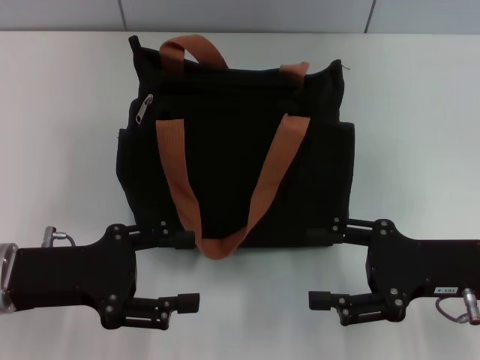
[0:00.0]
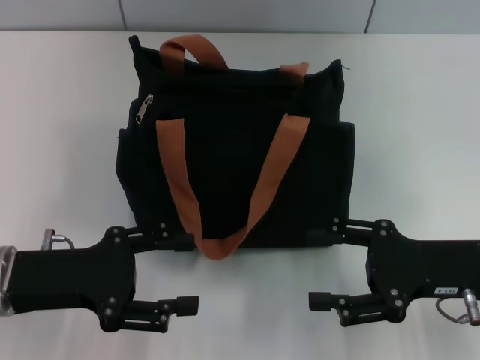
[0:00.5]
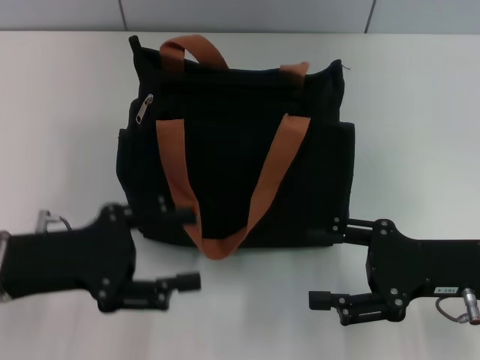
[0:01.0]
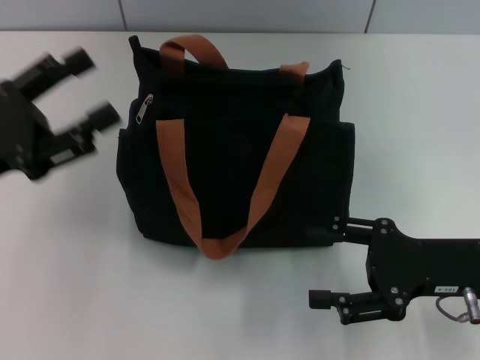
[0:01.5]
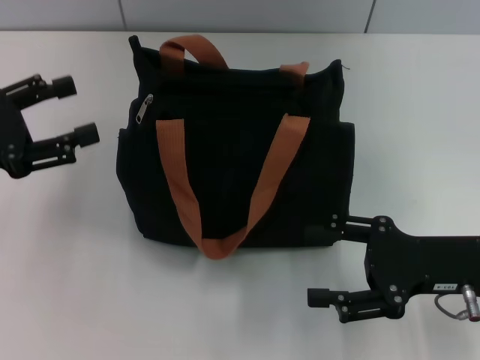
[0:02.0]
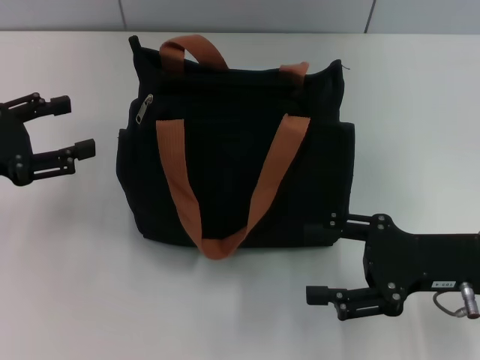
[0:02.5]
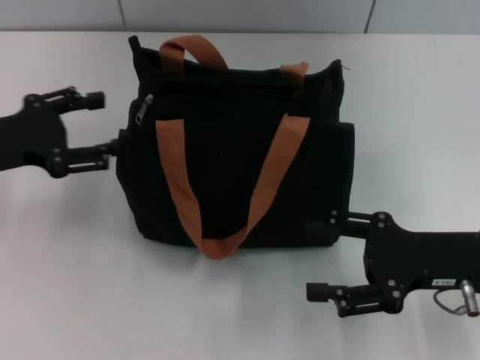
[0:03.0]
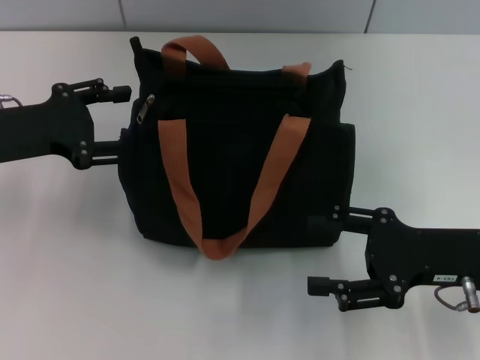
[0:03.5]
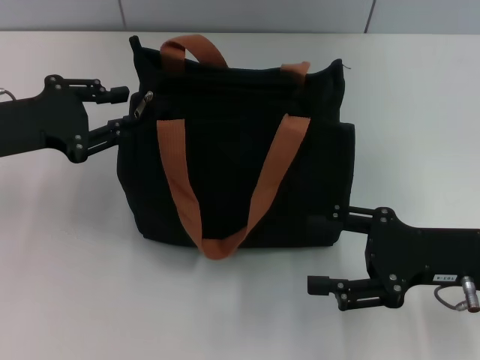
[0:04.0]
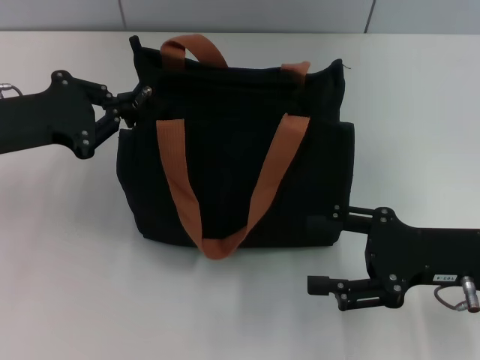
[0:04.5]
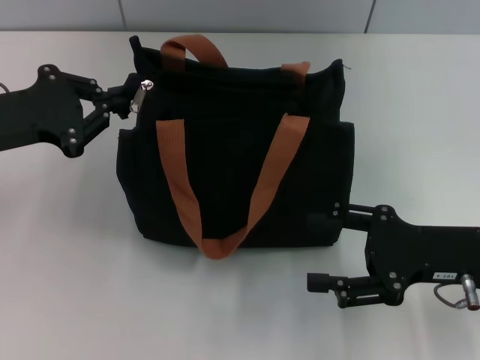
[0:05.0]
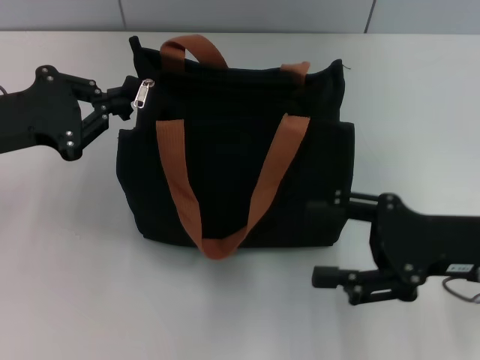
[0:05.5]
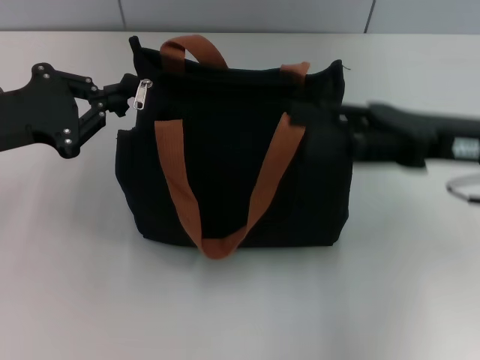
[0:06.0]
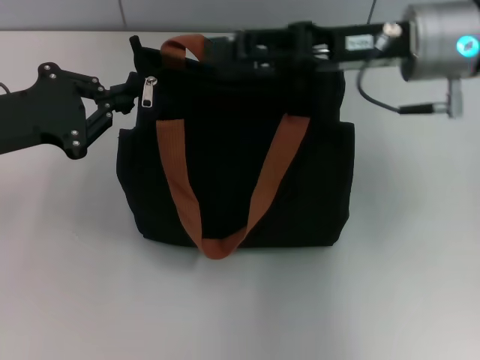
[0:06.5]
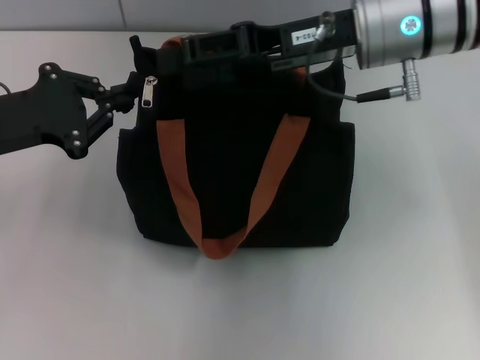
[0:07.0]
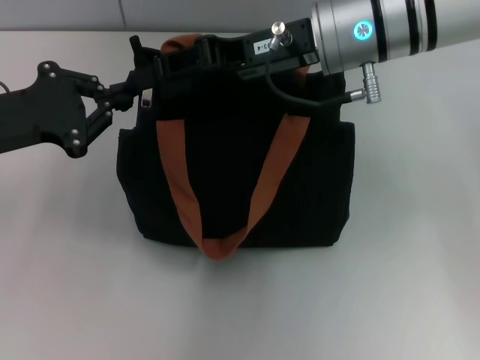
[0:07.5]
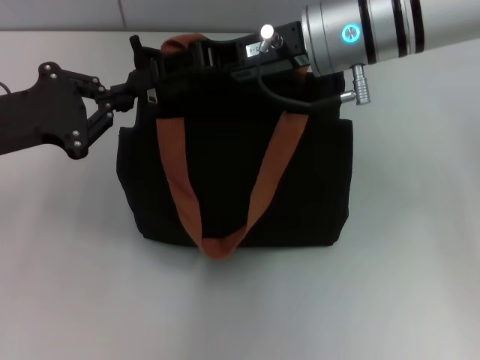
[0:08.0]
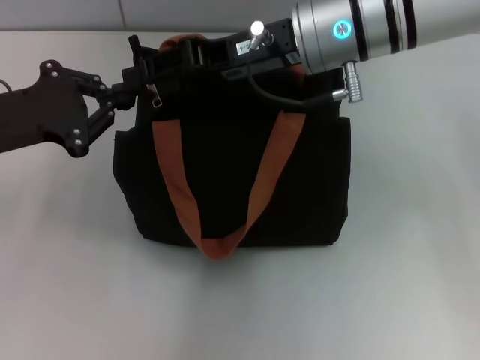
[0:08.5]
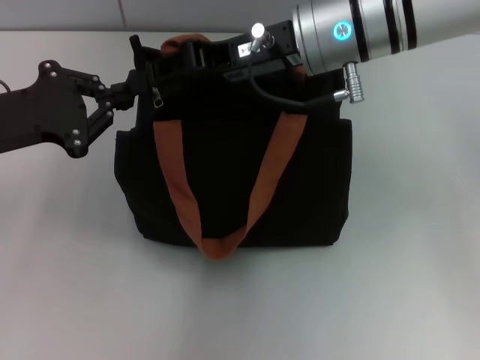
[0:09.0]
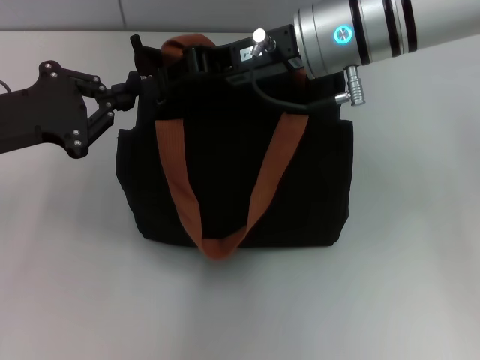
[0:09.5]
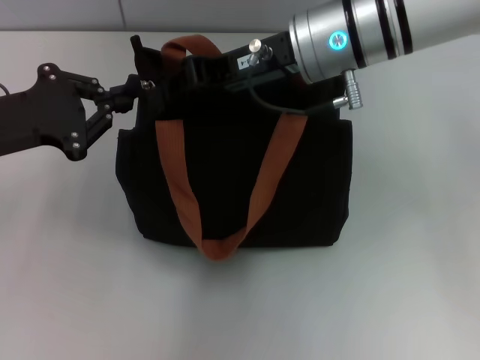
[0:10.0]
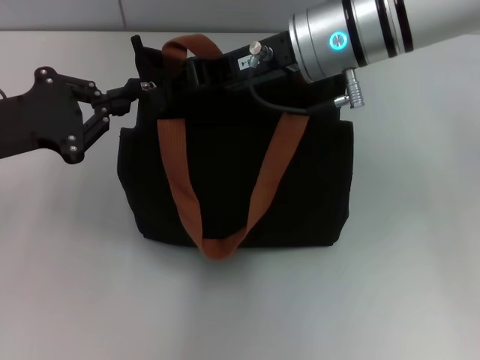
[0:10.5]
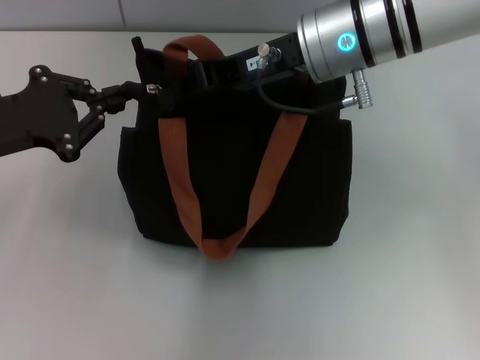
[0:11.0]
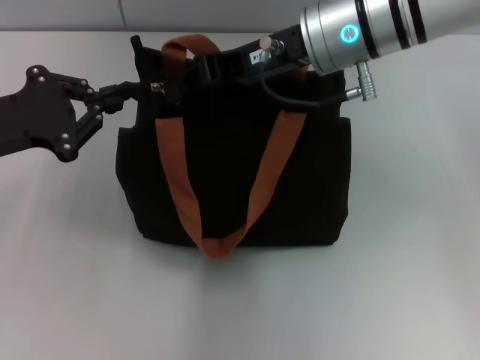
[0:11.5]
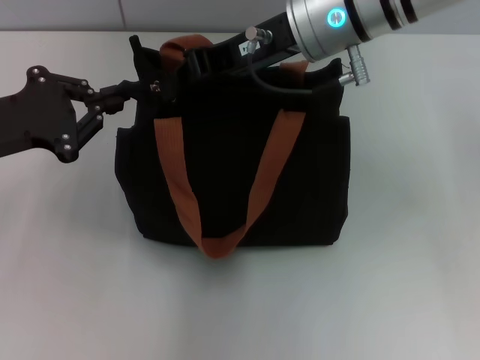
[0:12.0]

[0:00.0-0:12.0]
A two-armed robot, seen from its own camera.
0.0 to 2.0 s: The left gripper travels to the left and upward by approximately 10 cm.
2.0 to 4.0 s: The left gripper moves some 5 cm, and closes its fingers.
4.0 to 6.0 s: The left gripper closes. The right gripper heads upward and forward, covering about 10 cm.
6.0 to 8.0 s: The right gripper moves to the left and forward, roughly 15 cm.
8.0 to 10.0 s: The right gripper closes.
10.0 to 12.0 s: The grippers stay close to where they were, moving slightly.

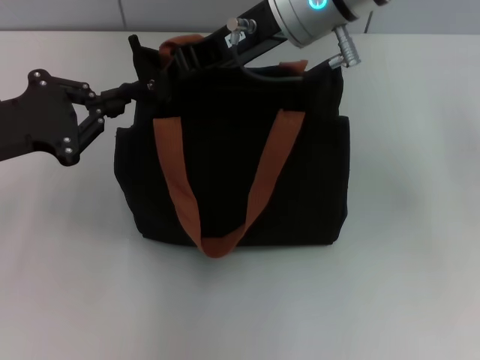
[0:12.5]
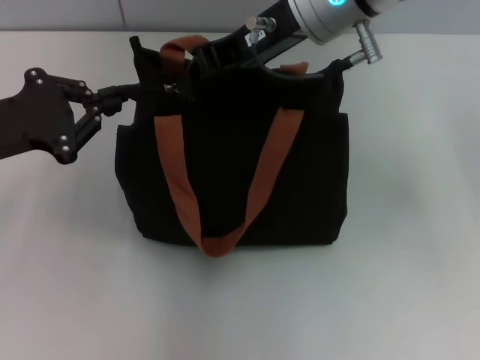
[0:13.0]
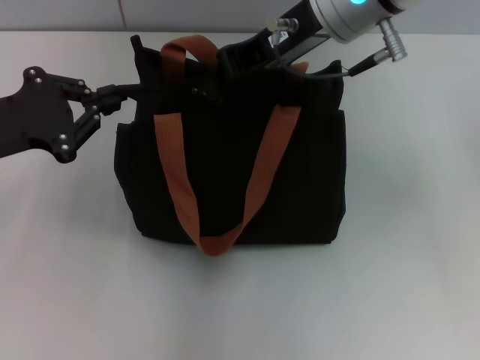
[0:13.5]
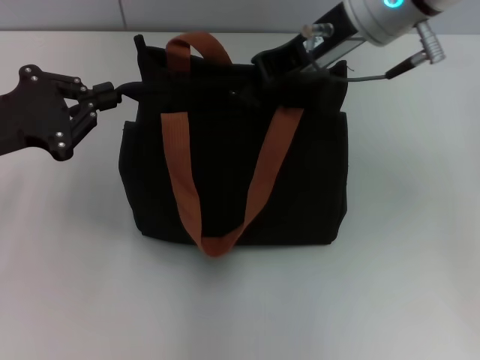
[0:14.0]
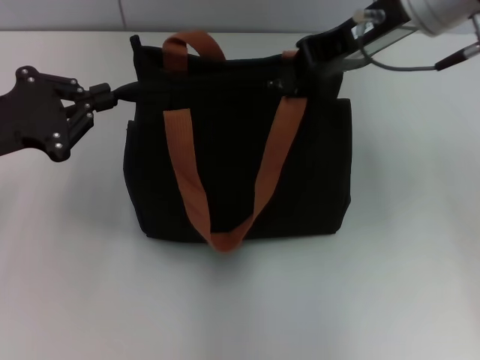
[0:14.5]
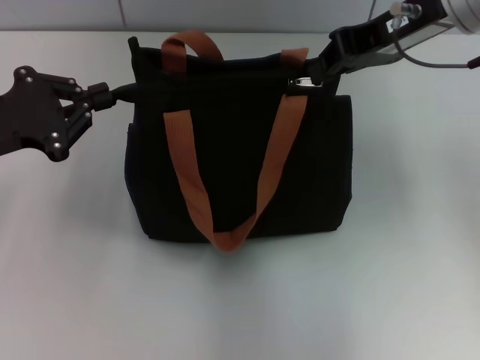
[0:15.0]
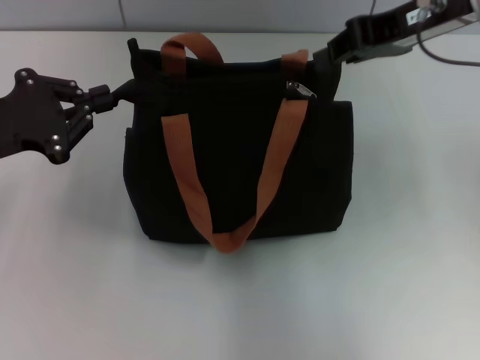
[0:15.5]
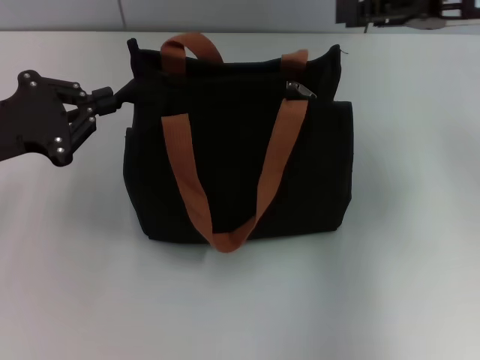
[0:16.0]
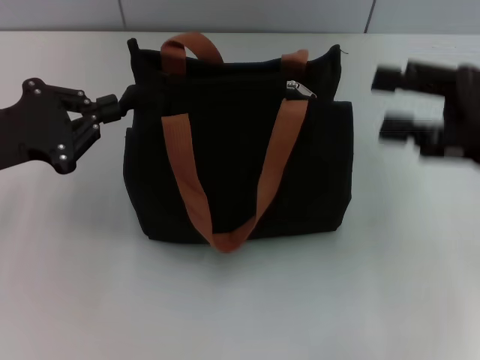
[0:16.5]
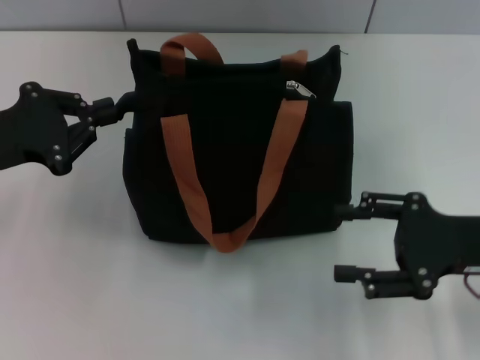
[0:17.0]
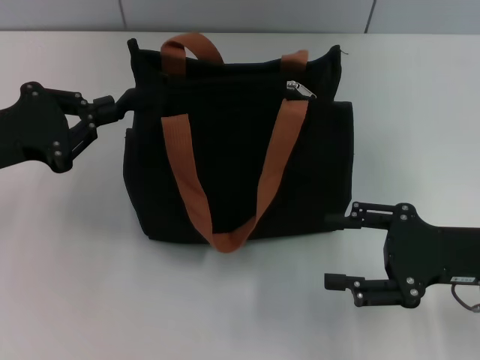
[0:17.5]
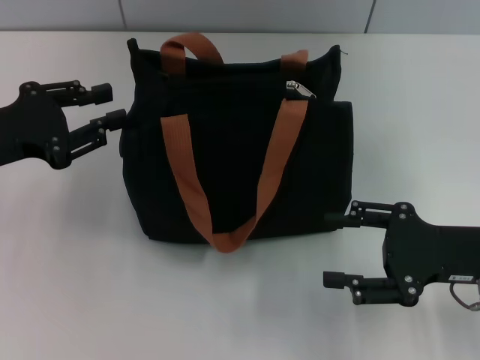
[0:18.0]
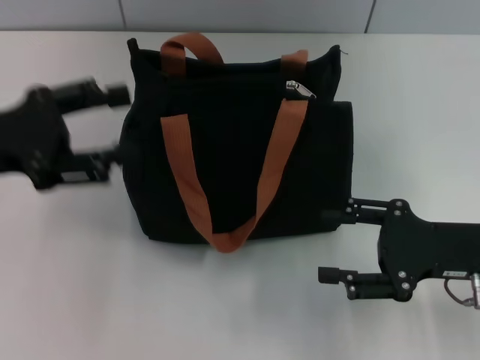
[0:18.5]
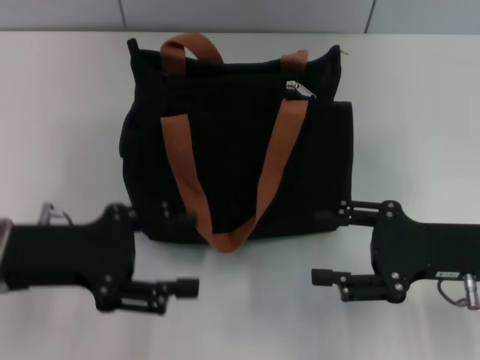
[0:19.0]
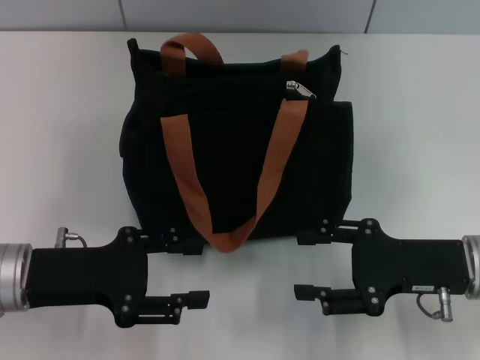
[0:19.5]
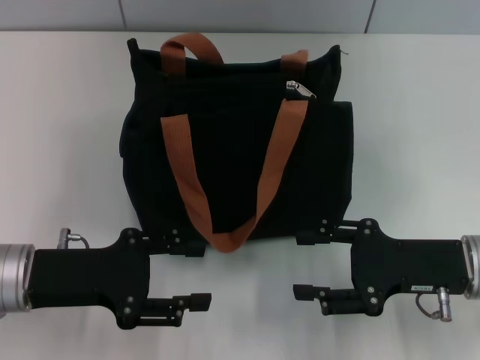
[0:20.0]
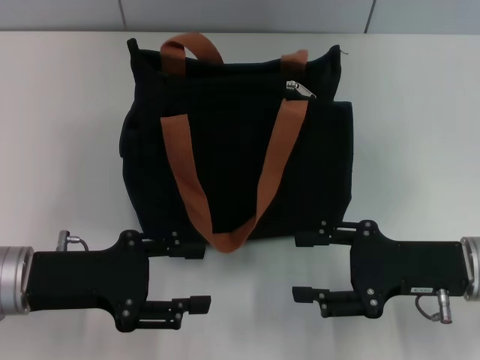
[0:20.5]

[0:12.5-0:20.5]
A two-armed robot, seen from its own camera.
Step, 12.5 to 15.0 s: Pull up the zipper with your right hand.
12.5 to 14.5 s: The right gripper is displaced to the right by about 10 cm.
14.5 to 16.5 s: The right gripper shifts approximately 20 cm to the right, downward and backward, and opens up.
16.5 to 18.5 s: The left gripper opens, while the right gripper travels downward by approximately 10 cm.
18.5 to 20.5 s: The left gripper is displaced downward, to the right and backward by some 10 cm.

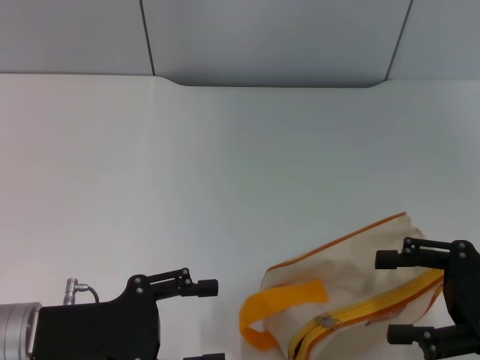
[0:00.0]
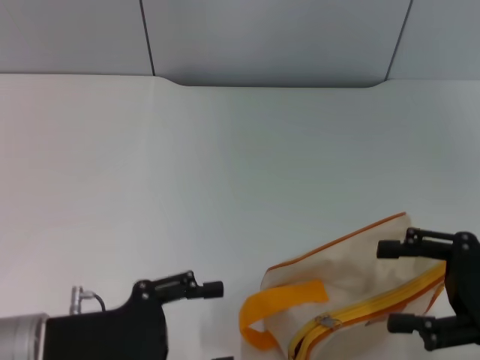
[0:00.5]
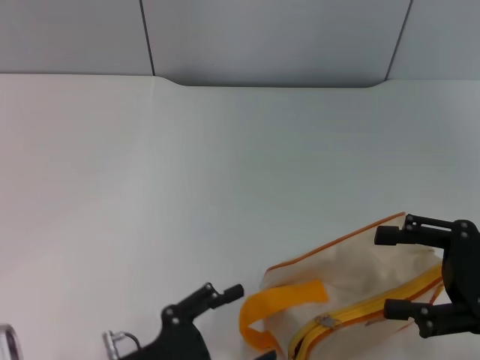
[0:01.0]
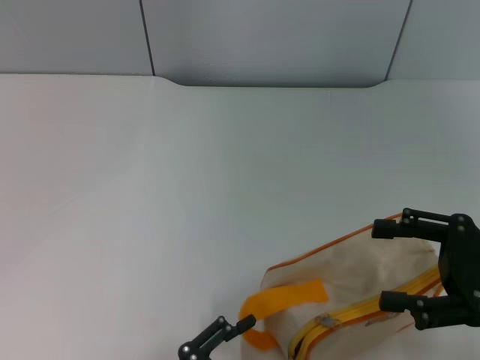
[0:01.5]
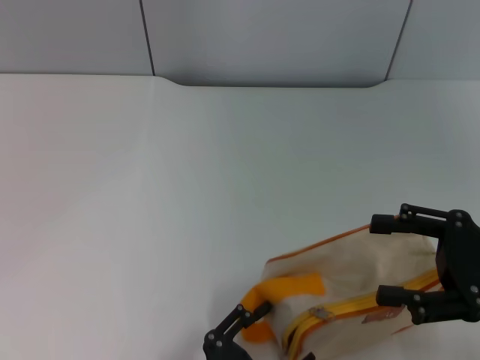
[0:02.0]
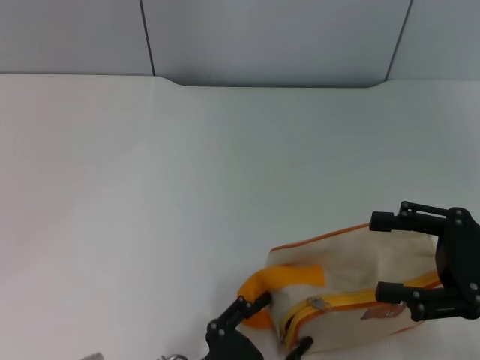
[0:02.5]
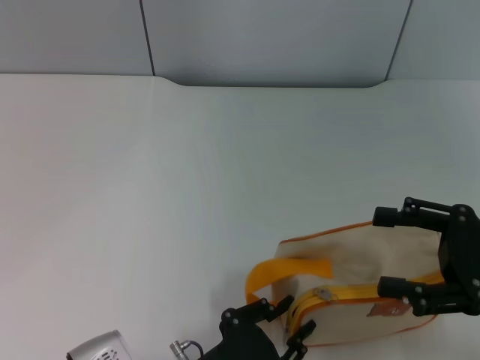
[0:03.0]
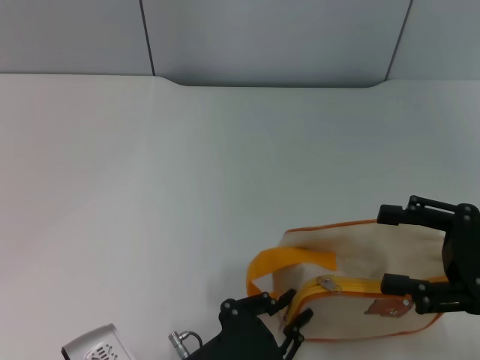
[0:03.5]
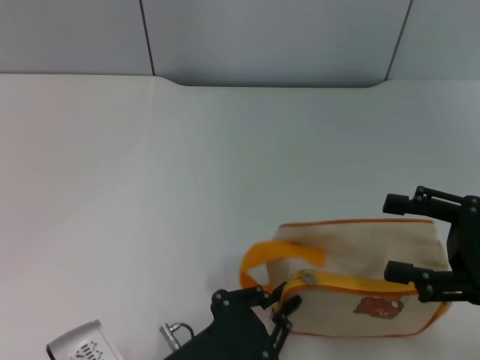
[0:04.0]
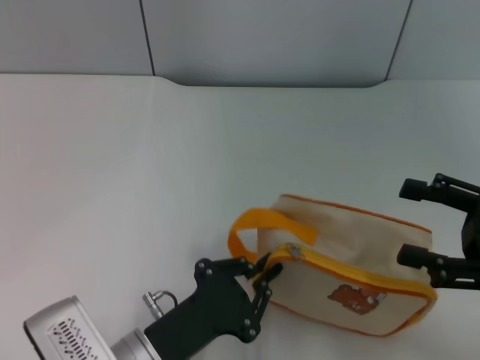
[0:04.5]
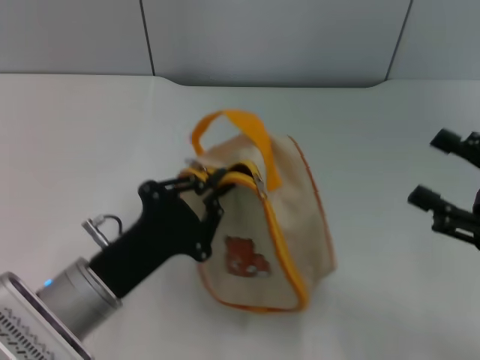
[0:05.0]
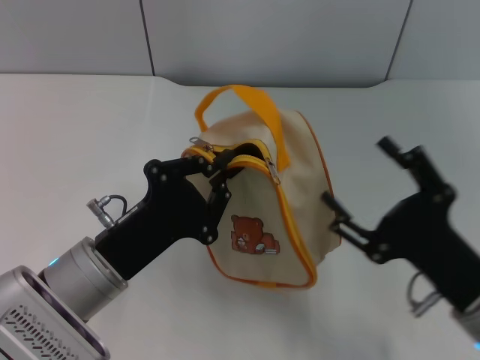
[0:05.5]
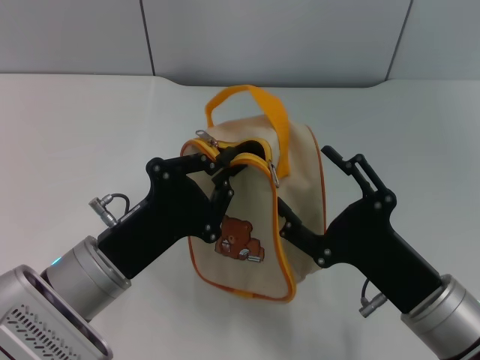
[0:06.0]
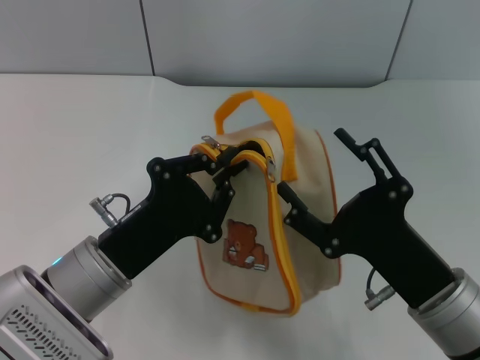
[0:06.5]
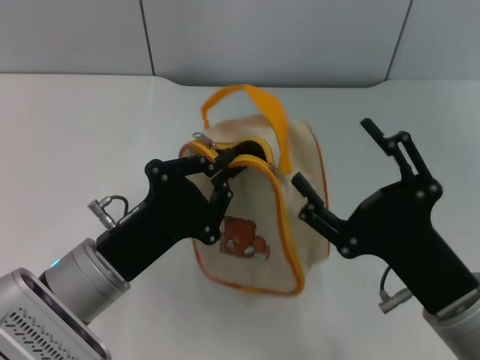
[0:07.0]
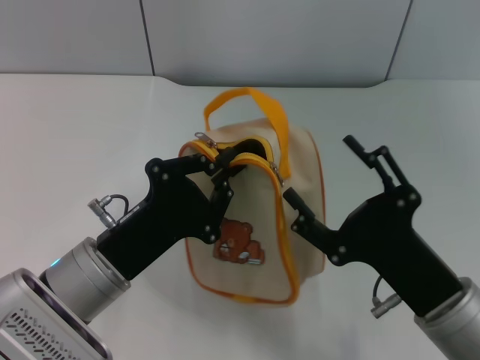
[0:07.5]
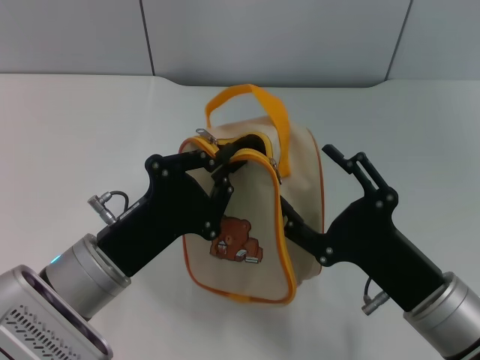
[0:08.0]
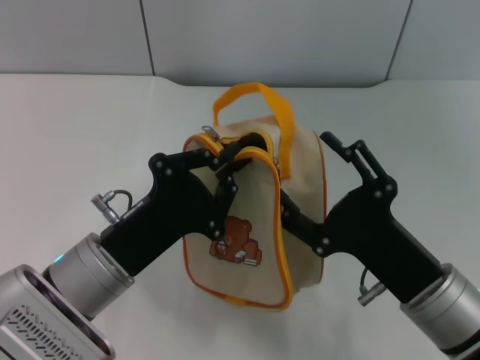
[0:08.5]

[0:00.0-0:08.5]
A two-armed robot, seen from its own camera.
Step, 0.0 to 5.0 s: Pick up the bag with left gripper.
0.0 to 2.0 s: The left gripper travels to the right, backward and downward by some 15 cm.
2.0 to 4.0 s: The left gripper closes its fingers.
4.0 to 6.5 s: The right gripper shifts about 15 cm to the left and downward; the left gripper shifts some 10 cm forward and upward.
6.5 to 8.5 s: The grippers move only a little.
